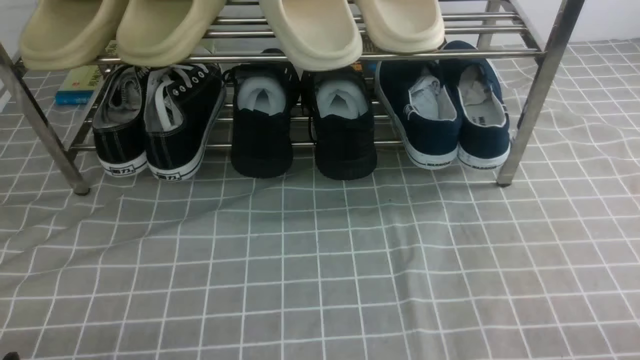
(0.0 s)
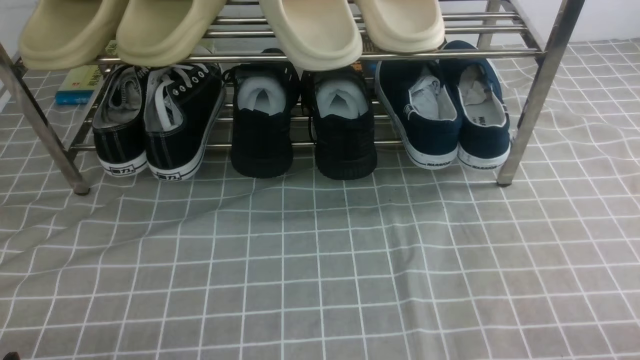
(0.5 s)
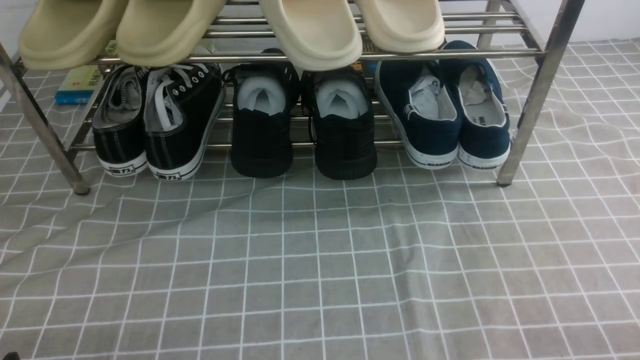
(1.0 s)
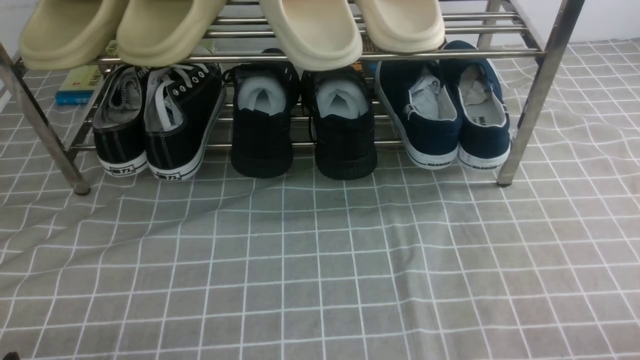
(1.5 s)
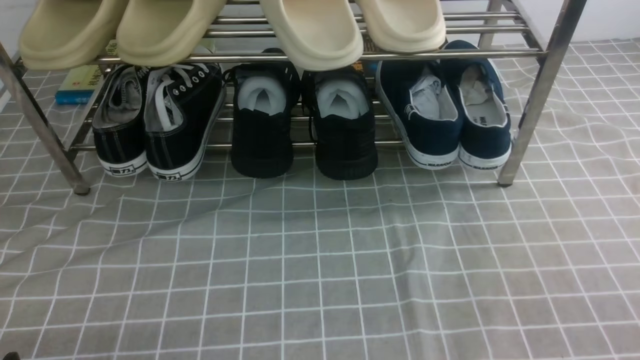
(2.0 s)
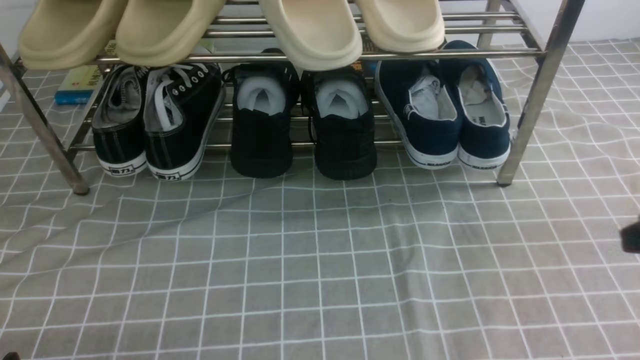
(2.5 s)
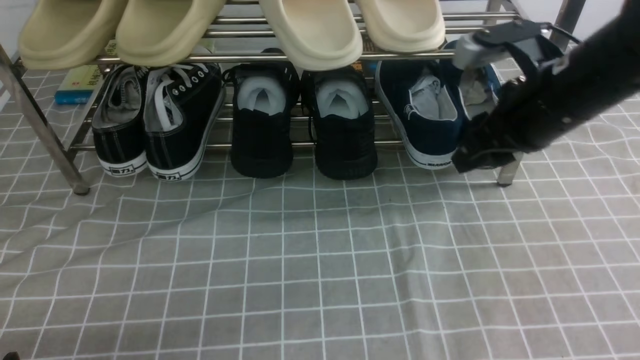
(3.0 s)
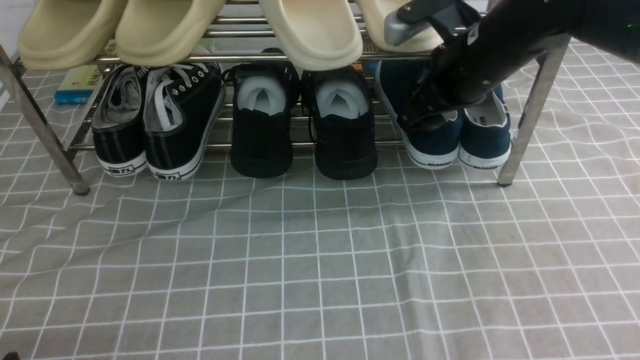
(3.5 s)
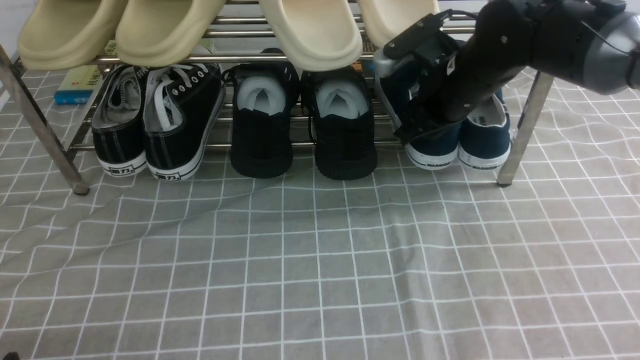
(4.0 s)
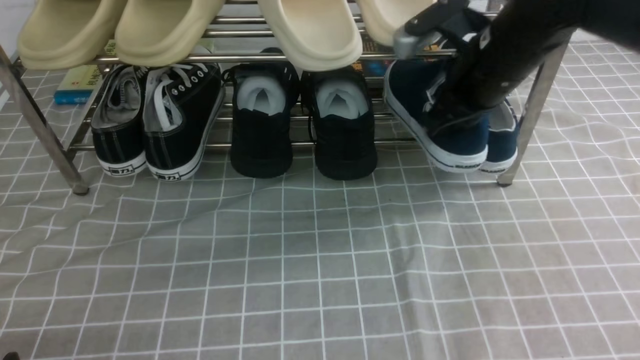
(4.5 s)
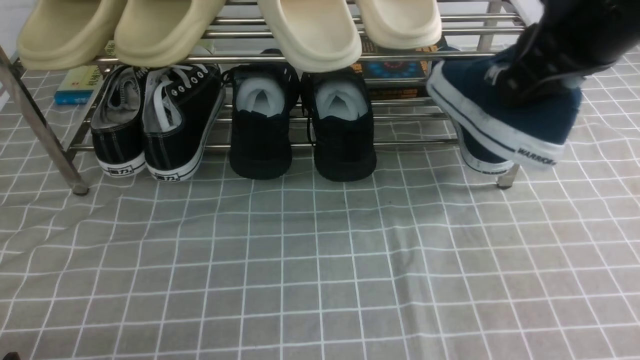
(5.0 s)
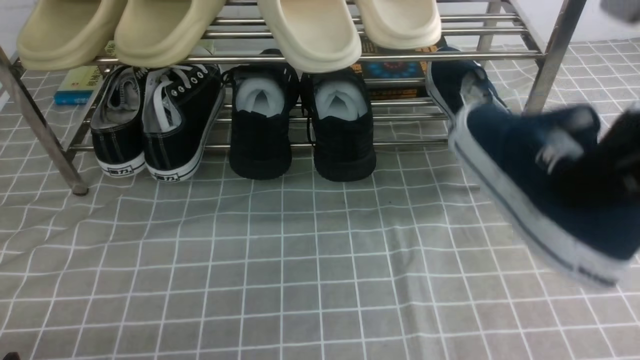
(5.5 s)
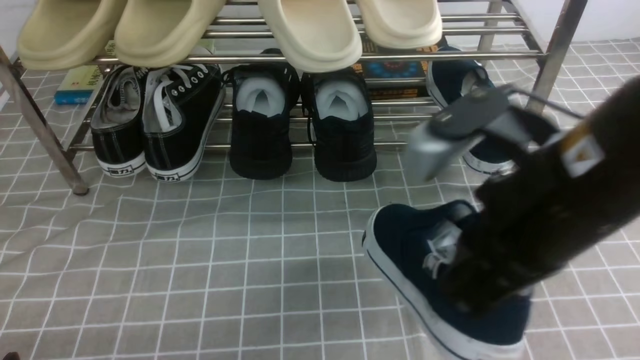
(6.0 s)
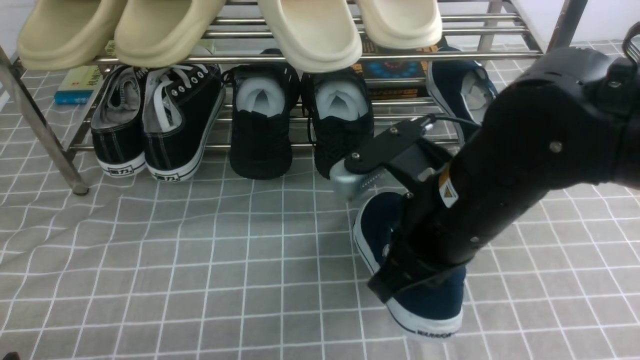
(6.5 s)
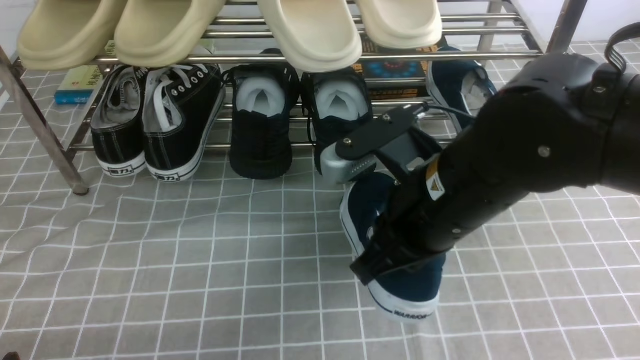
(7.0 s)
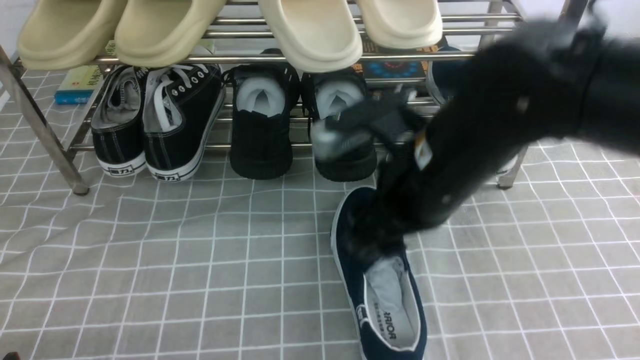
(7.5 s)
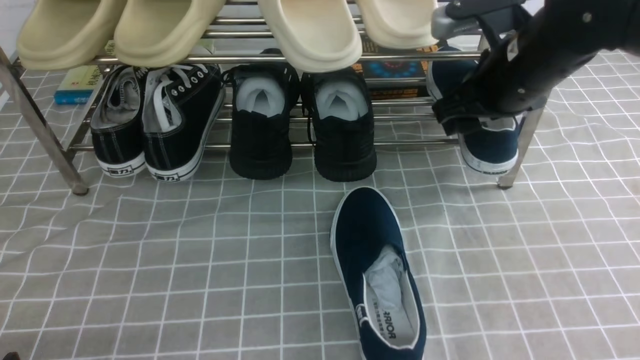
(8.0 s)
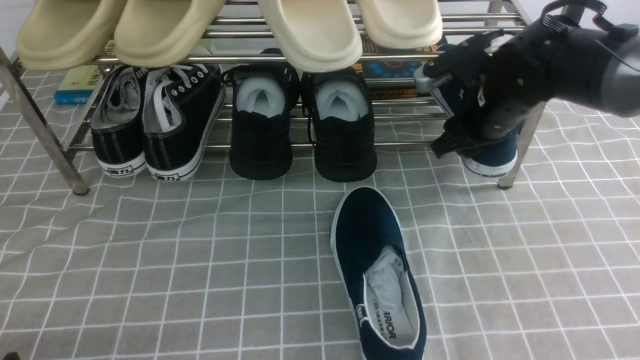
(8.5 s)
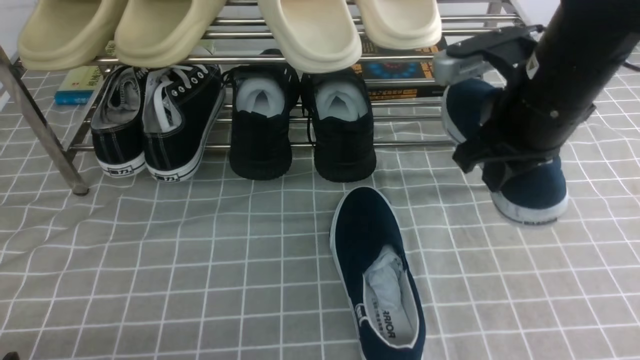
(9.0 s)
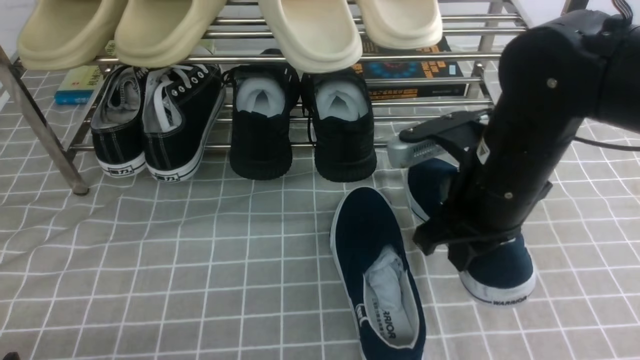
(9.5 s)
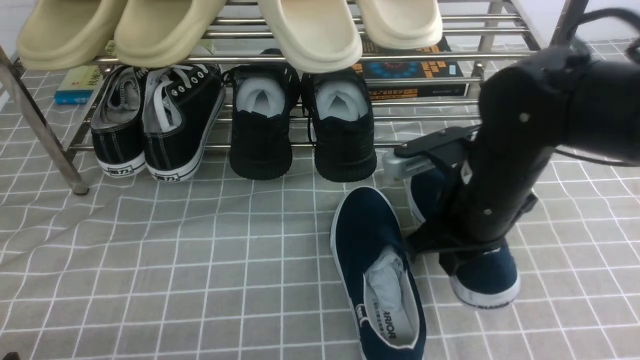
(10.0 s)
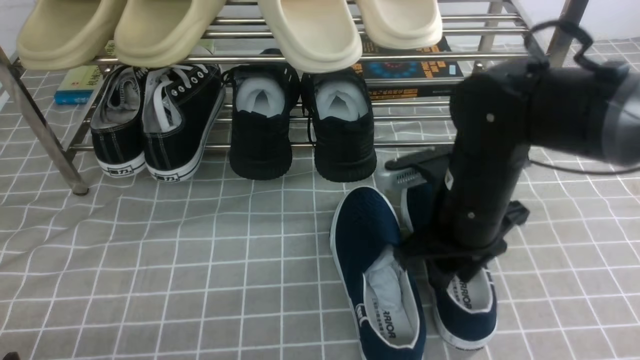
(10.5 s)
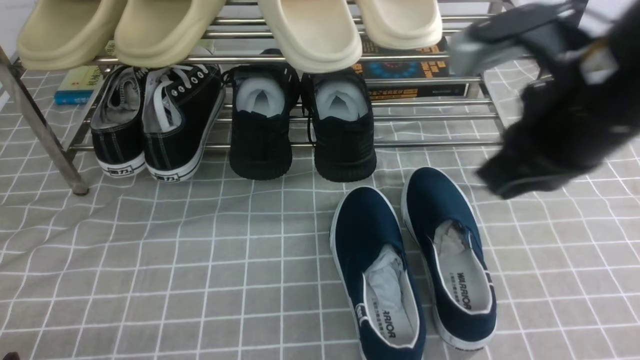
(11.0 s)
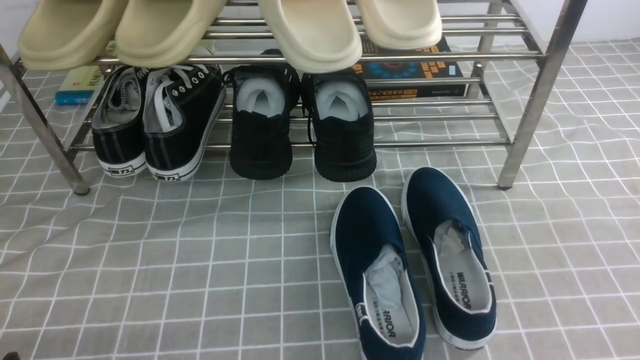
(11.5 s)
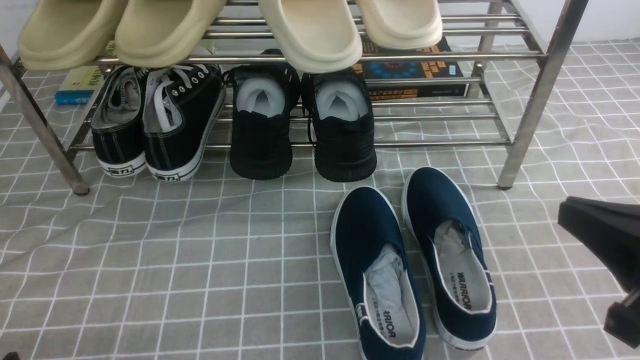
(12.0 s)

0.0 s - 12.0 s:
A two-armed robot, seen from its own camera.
Step, 0.0 s - 4.0 s: use the right arm to clamp a shoe on the right side of the shoe rack.
Step, 4.5 s - 7.5 s: use the right arm to take out the clamped shoe from the shoe rack and put it down.
Step, 8.0 s - 9.0 s: use the right arm to clamp a shoe on the right side of the shoe rack.
Step, 9.5 s - 10.5 s: use the right arm to take out the clamped shoe from the shoe rack and put it down.
0.0 s - 2.0 s: The right gripper moves upward, approximately 10 cm.
2.0 s - 4.0 s: The right gripper is displaced forward and to the left by about 40 cm, and opens and closes again.
4.0 s - 6.0 s: The right gripper travels backward by roughly 25 cm.
6.0 s - 8.0 s: The right gripper moves forward, approximately 20 cm, and opens.
8.0 s - 10.0 s: The right gripper moves backward and downward, some 10 cm, and closes up.
10.0 s - 12.0 s: The right gripper shifts approximately 20 cm backward and to the right, and opens, then closes once more.

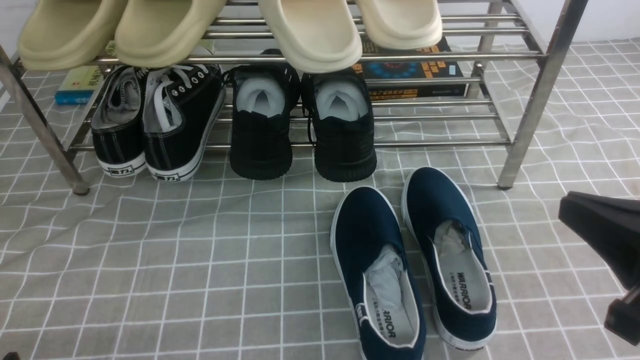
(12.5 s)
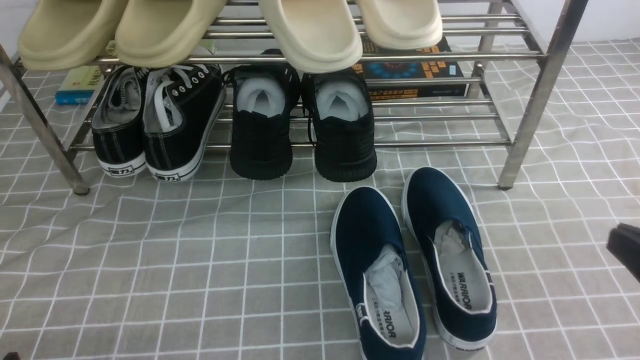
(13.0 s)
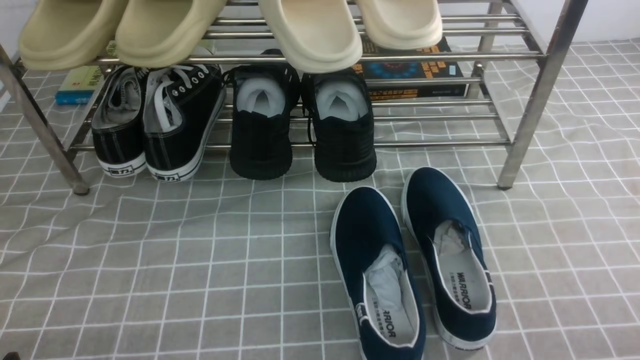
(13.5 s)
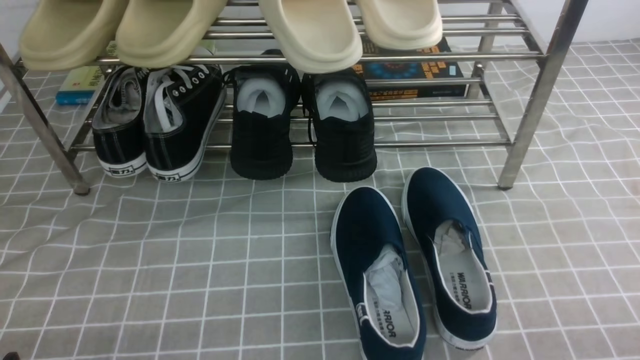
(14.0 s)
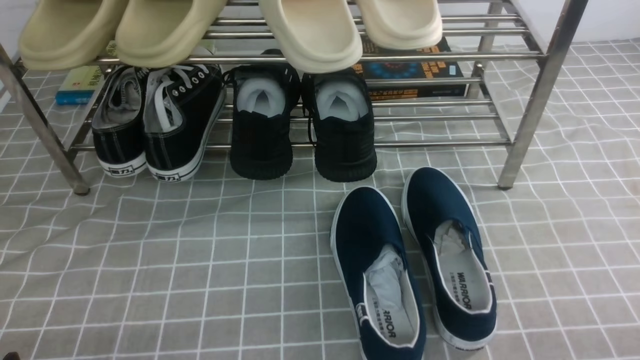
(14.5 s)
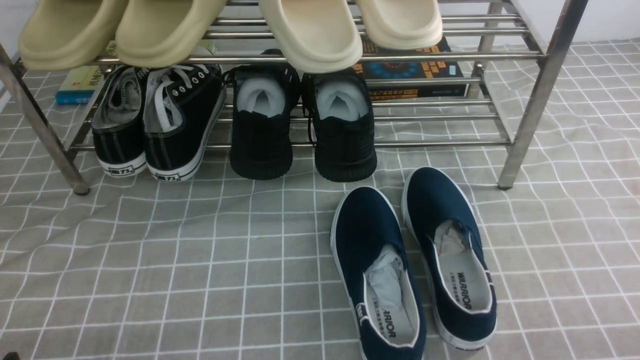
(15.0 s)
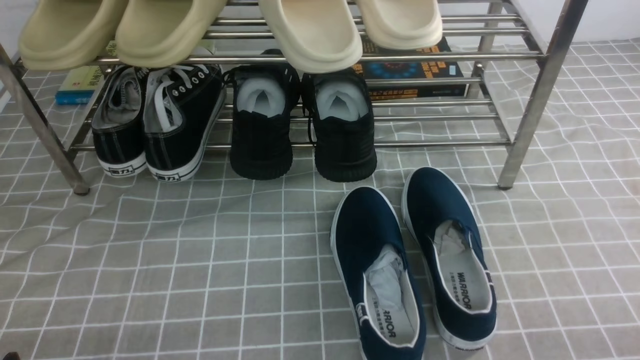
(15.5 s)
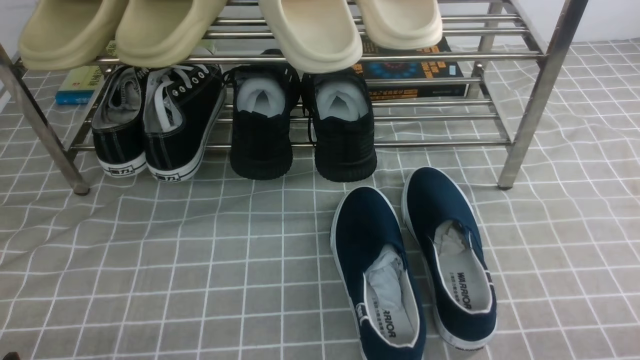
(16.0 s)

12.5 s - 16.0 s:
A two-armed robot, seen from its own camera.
12.5 s - 14.5 s: The right gripper travels downward, to the right and backward by roughly 15 cm.
14.5 s - 16.0 s: Both grippers stay put.

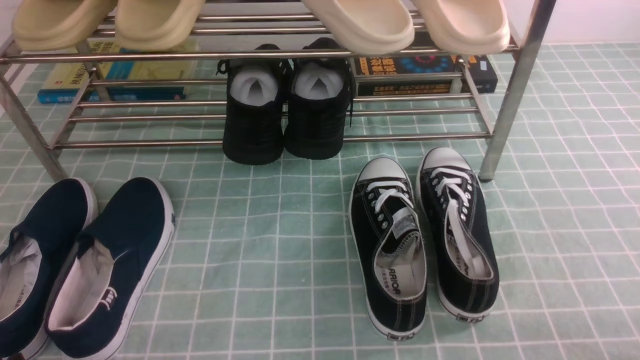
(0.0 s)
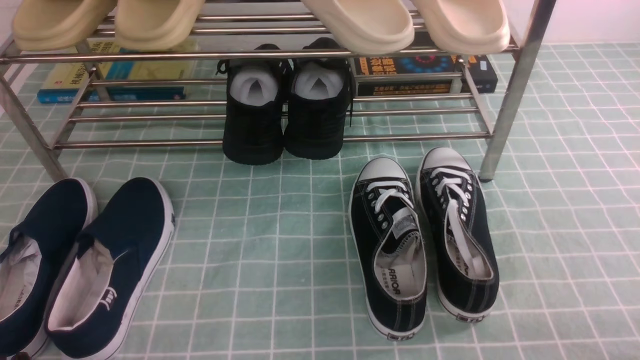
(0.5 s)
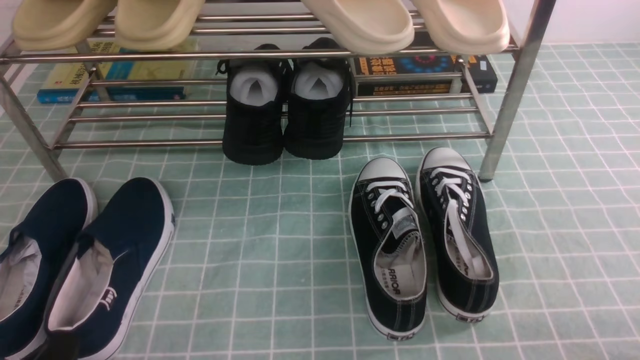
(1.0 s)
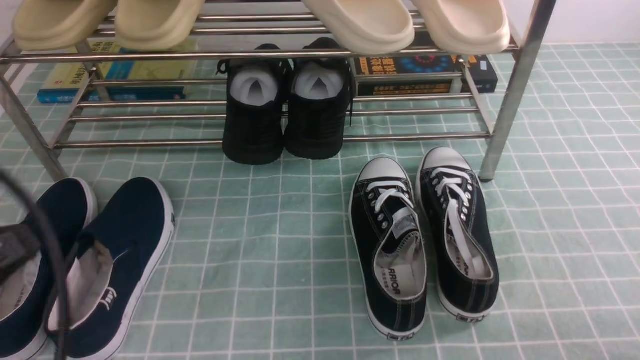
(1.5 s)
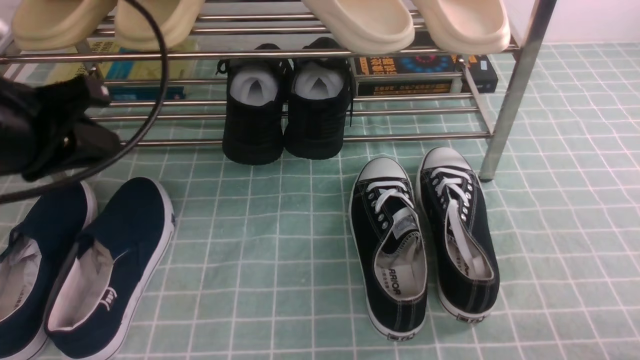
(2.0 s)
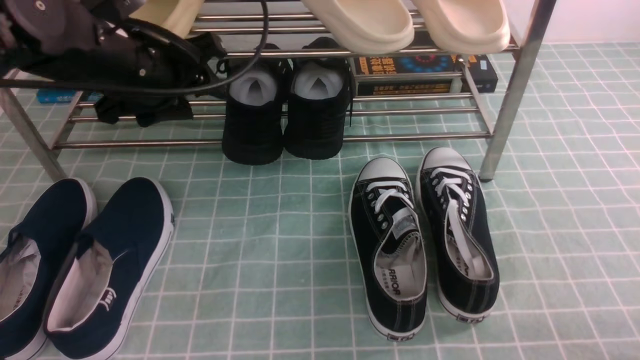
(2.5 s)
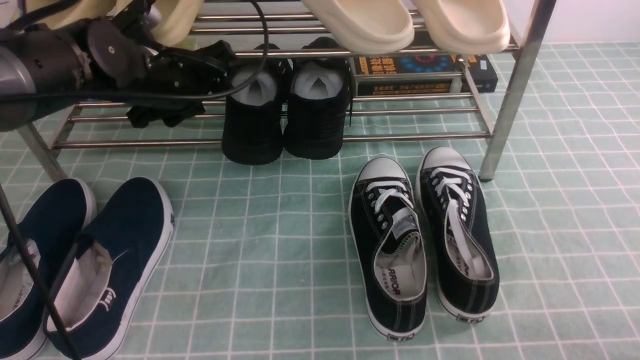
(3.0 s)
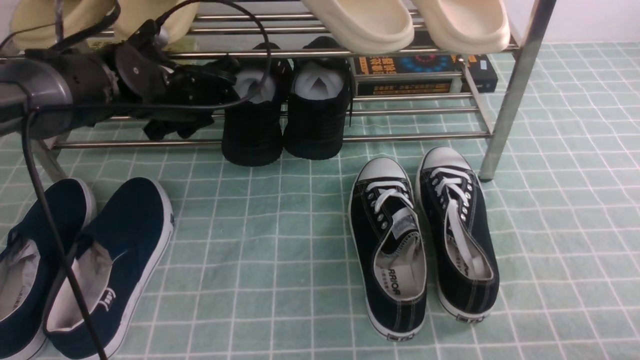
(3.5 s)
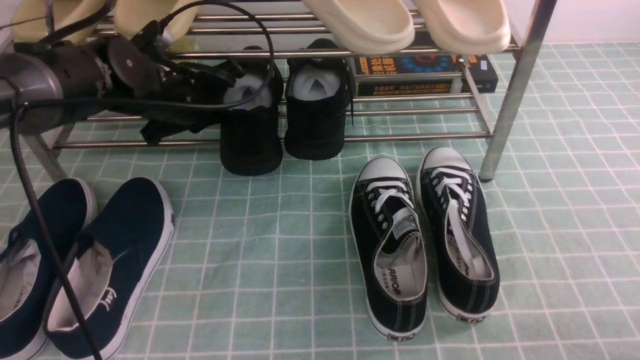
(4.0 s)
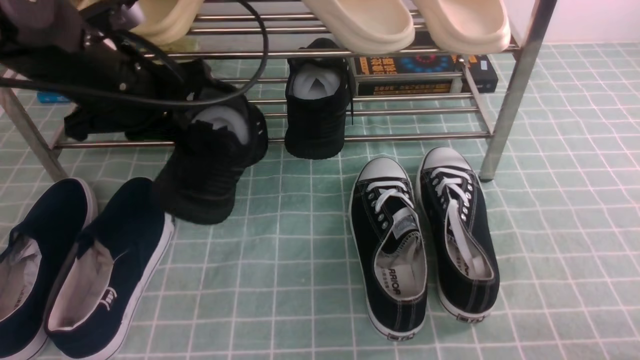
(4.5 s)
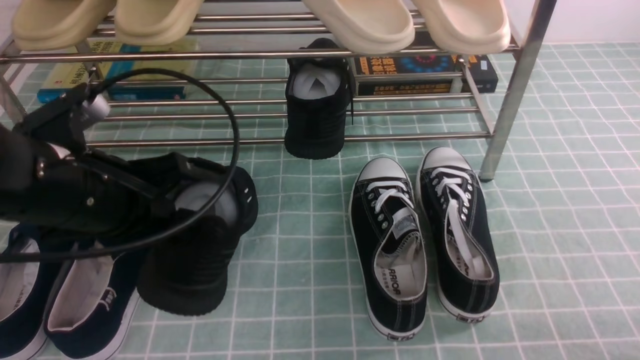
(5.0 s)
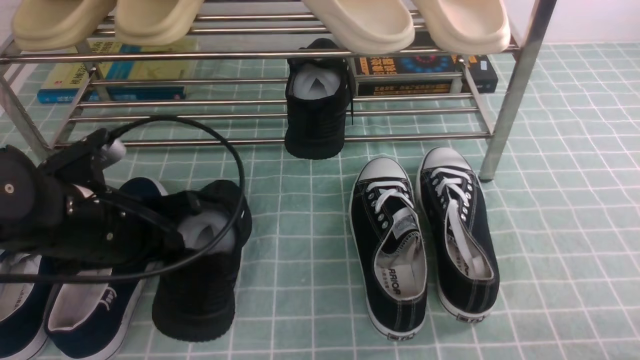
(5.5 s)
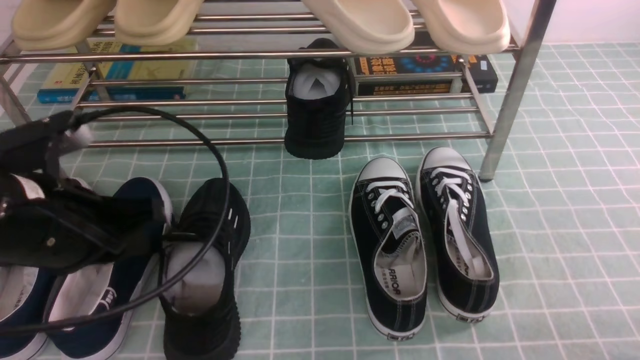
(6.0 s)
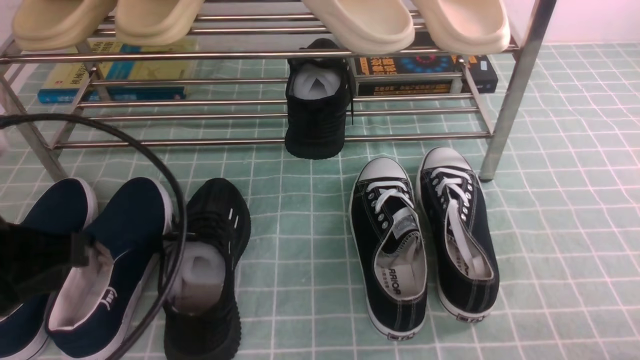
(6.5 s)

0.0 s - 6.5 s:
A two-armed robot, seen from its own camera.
Step, 0.0 s - 3.5 s: use the left arm to clamp a shoe in the middle of the shoe rack.
Step, 4.0 s - 5.5 s: Use your left arm to remove the clamped shoe from the shoe rack and put it down.
0.0 s - 2.0 s: The left gripper goes about 25 cm forward and upward.
2.0 s - 4.5 s: The left gripper is displaced forward by about 10 cm, and closes its fingers.
4.5 s - 6.5 s: The left gripper goes about 15 cm backward, and opens and closes again.
